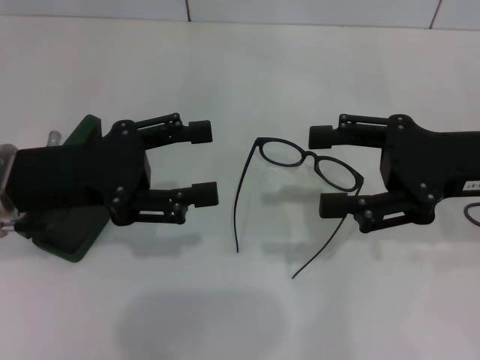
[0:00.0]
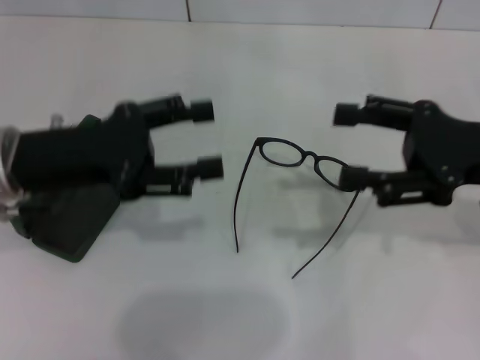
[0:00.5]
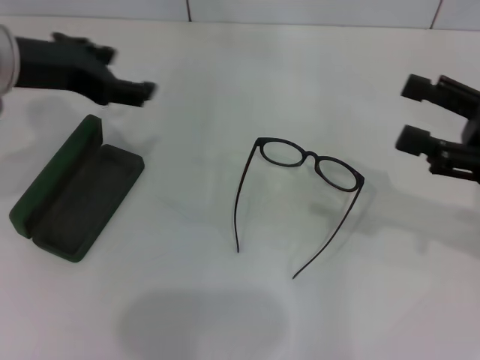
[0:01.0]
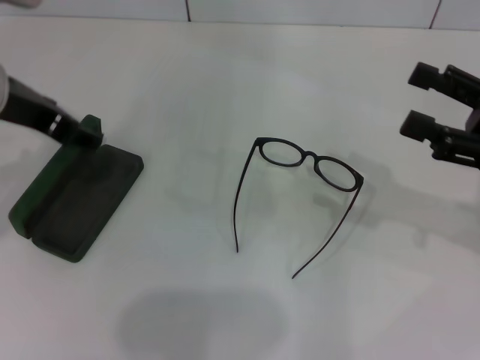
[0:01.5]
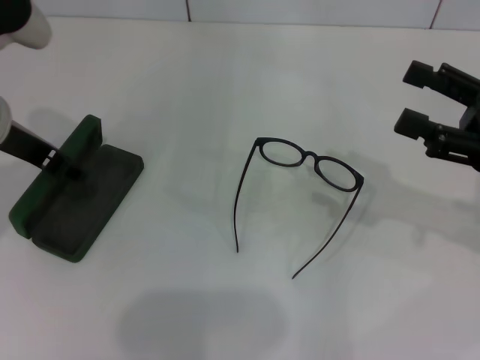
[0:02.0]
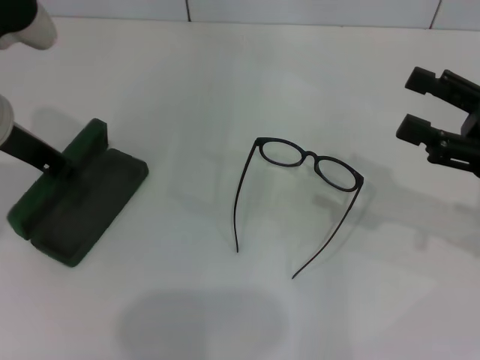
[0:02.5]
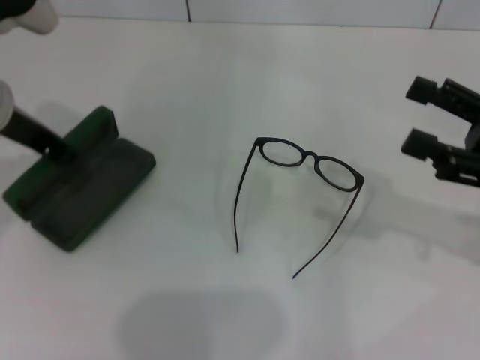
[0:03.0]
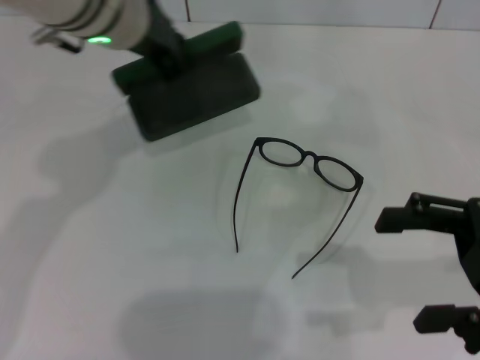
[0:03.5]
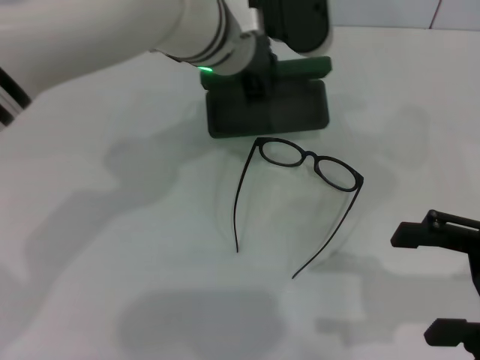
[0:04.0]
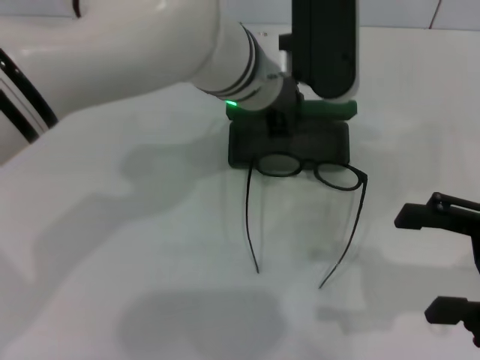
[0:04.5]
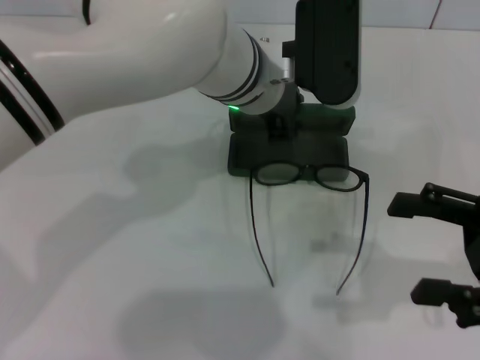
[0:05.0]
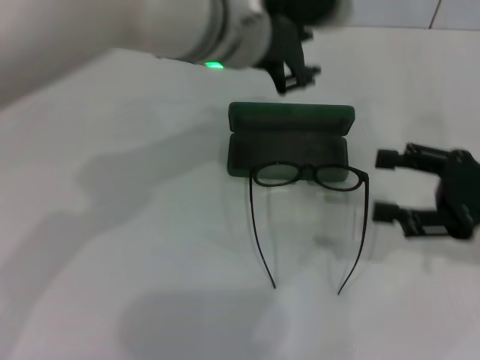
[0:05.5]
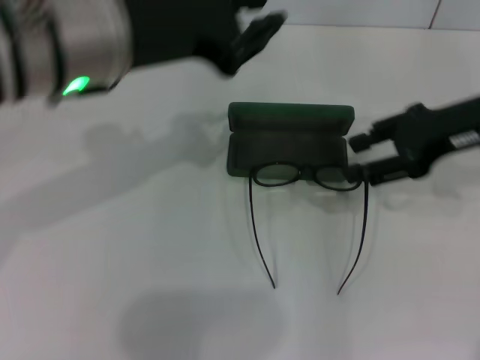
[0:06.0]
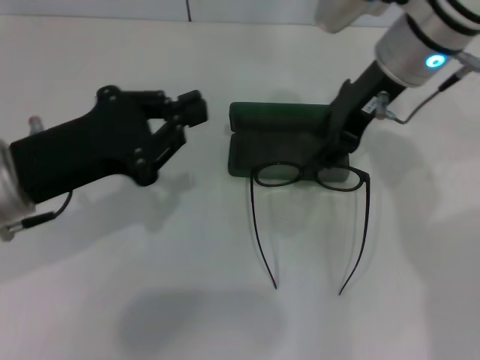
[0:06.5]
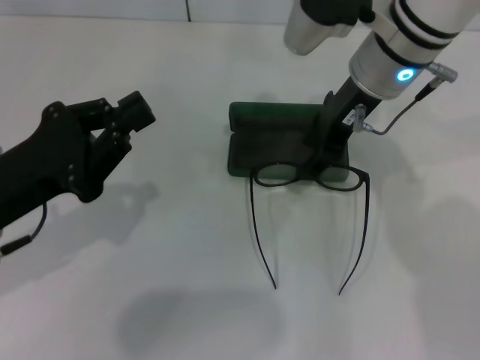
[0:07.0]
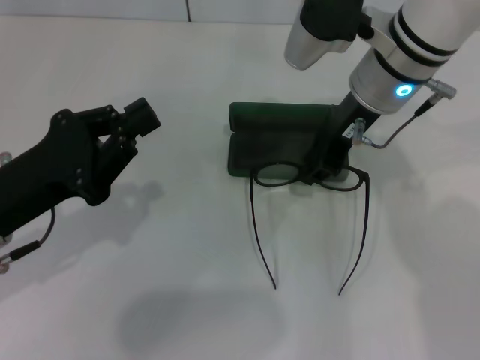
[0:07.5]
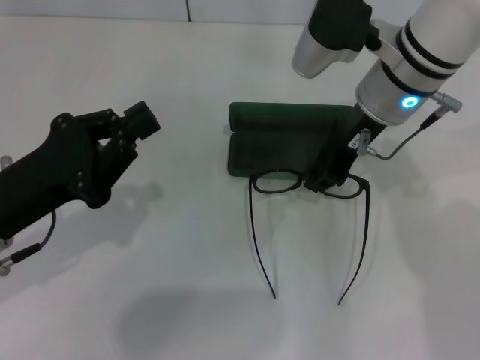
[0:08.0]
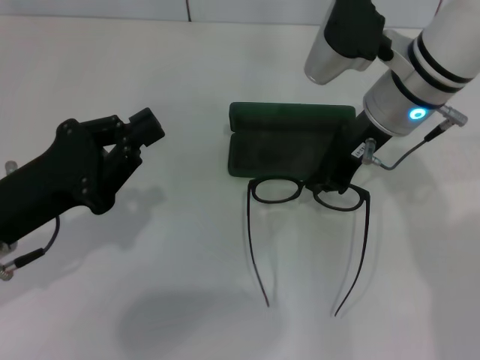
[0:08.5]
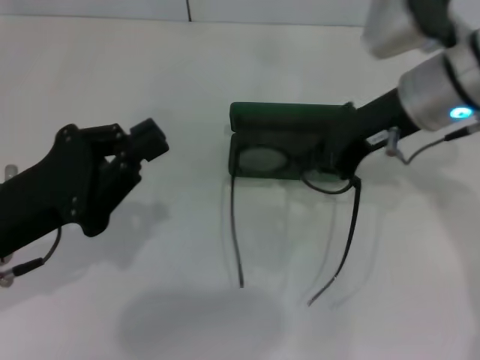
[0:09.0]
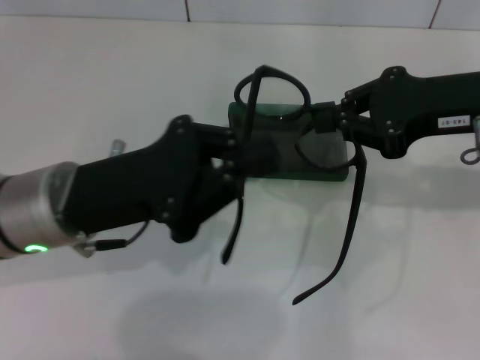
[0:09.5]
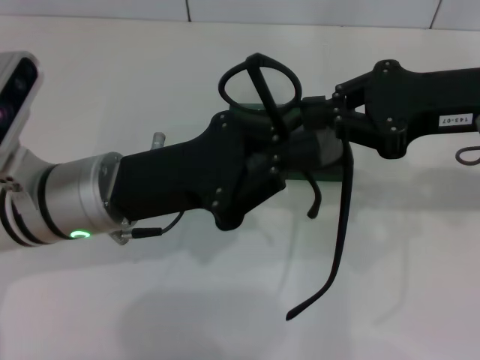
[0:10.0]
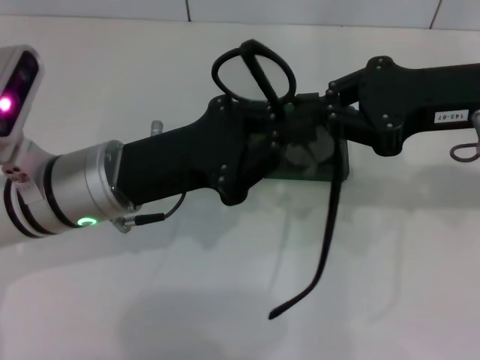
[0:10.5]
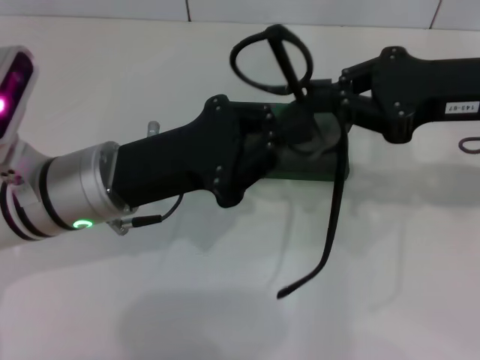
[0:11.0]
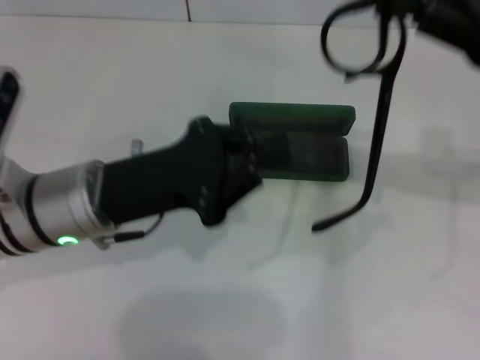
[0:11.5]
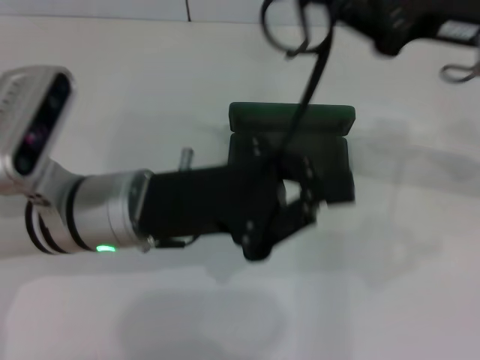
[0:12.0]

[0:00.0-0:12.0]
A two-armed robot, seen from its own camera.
Step, 0:00.0 to 0:02.0: Grab the glasses case with your left hand.
Step, 0:02.5 to 0:04.5: Place the glasses case in the center of the table with your left hand.
Step, 0:05.5 to 0:07.5: Grab the eyeglass frame with your right hand.
0:00.0 to 0:02.0: The right gripper goes some 5 cm to the right. Meanwhile the left gripper goes roughly 5 cm forward and upward.
0:02.0 to 0:04.0: The right gripper travels backward by about 5 cm, while the left gripper heads to the right, covering approximately 20 cm, and closes up.
0:04.0 to 0:06.0: The left gripper goes roughly 15 cm to the left and backward, while the right gripper moves forward, upward and to the left, roughly 15 cm.
0:06.0 to 0:08.0: The right gripper travels to the left by some 15 cm, and closes; the left gripper moves downward, to the left and backward, roughly 20 cm.
0:08.0 to 0:10.0: The left gripper goes some 10 cm to the right. The right gripper travels to the right and backward by about 15 cm.

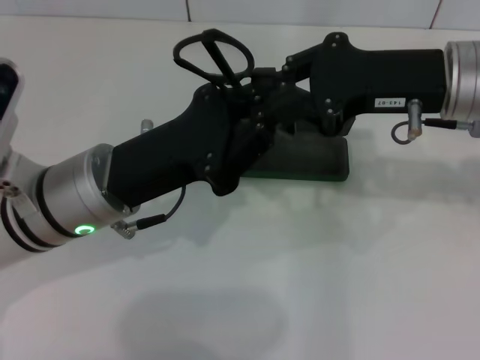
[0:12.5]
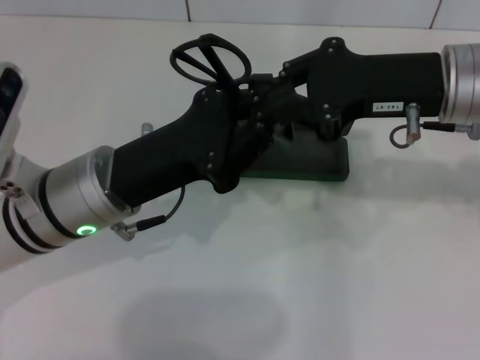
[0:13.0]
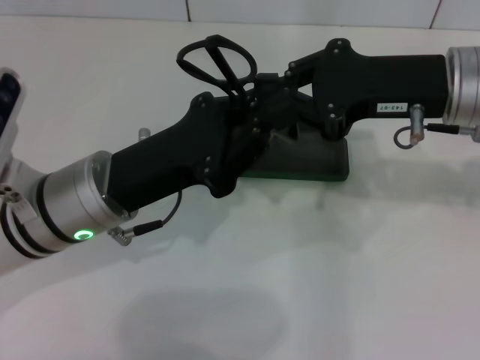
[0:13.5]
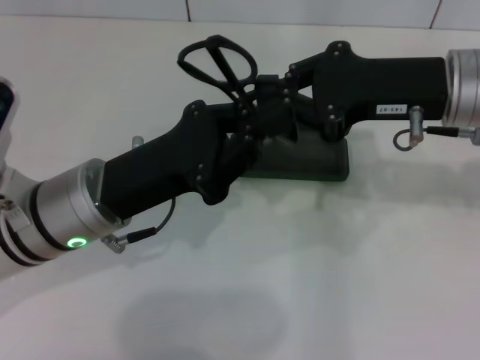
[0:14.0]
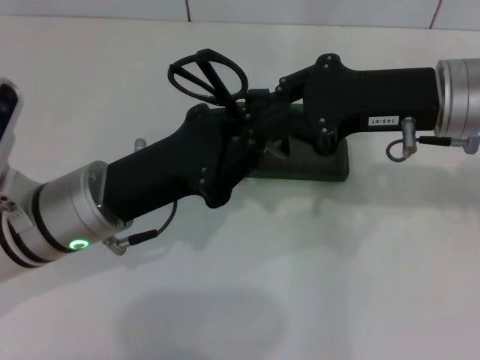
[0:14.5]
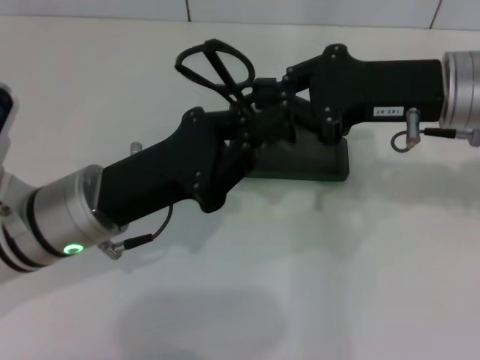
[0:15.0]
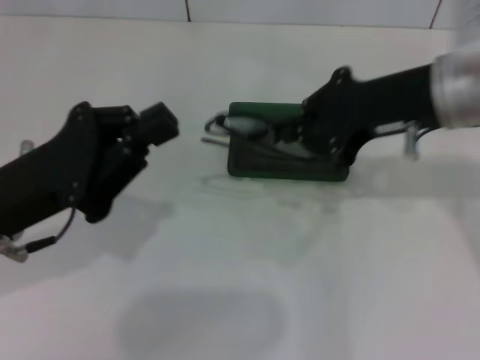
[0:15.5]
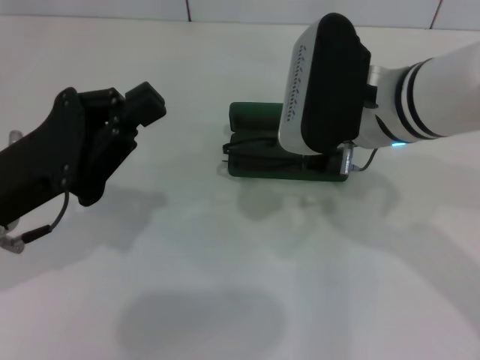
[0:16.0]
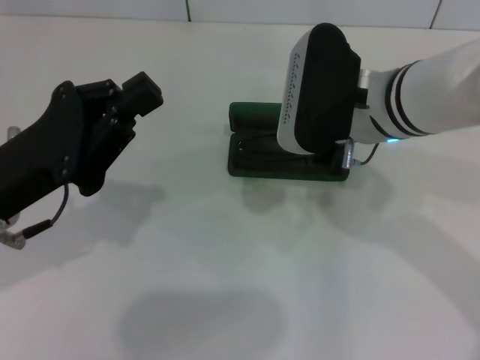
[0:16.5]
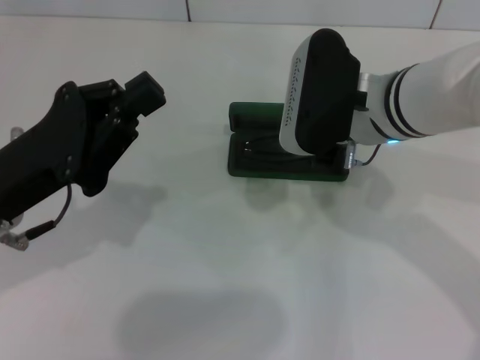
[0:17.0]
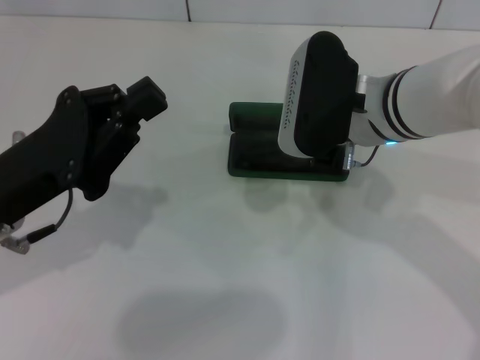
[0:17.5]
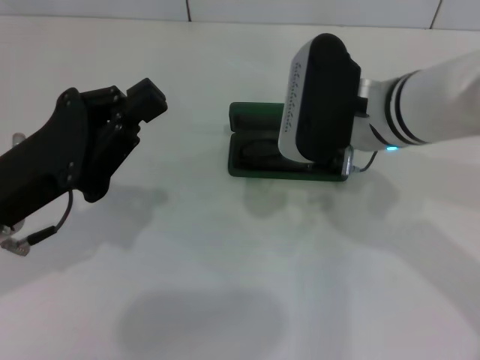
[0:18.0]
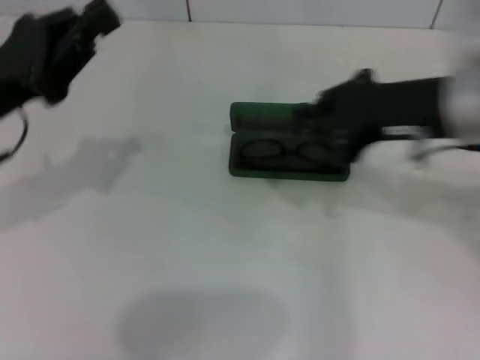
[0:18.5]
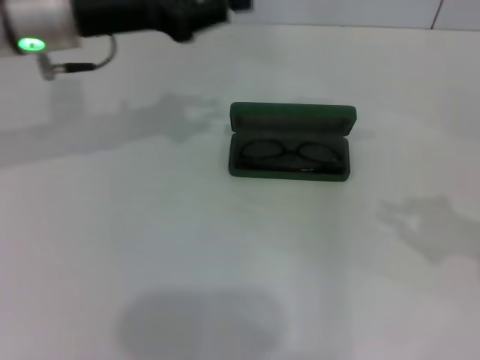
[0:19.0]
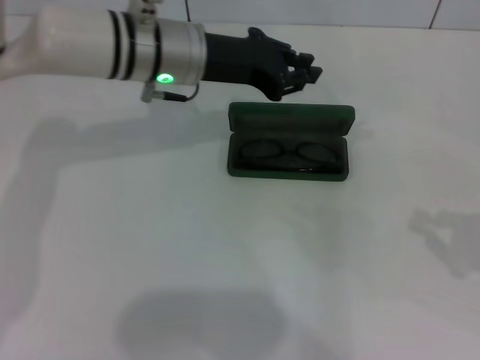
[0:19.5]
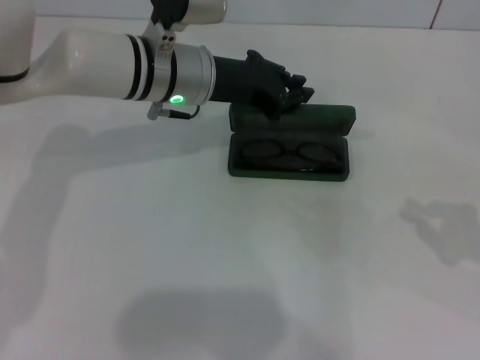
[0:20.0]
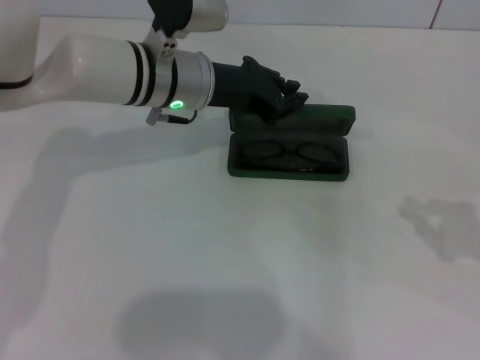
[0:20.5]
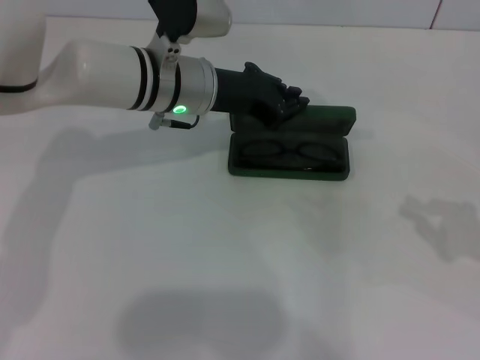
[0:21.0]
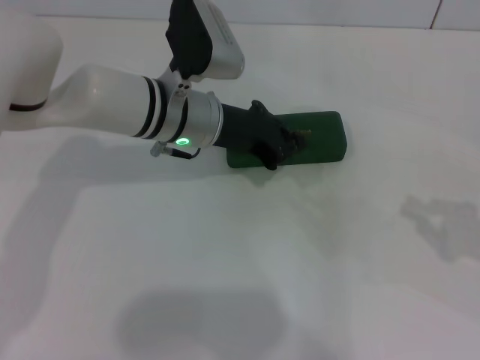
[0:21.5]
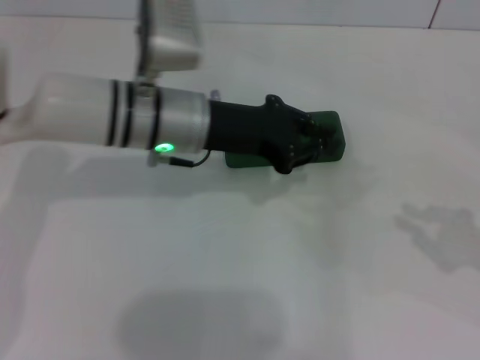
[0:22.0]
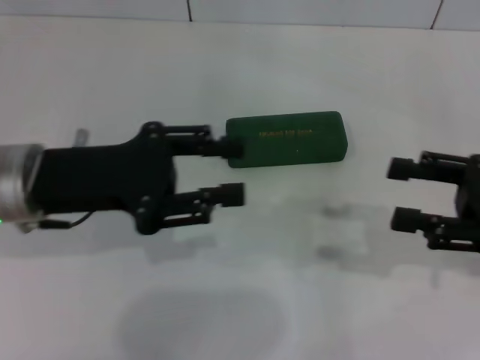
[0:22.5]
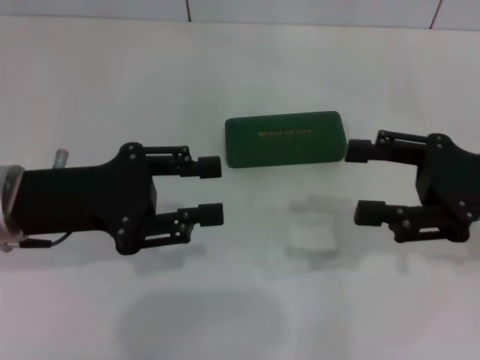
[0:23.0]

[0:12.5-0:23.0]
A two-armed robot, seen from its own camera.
Step, 0:14.0 to 0:18.0: Put the glasses into the case with your right hand.
Step, 0:18.5 to 0:21.5: Close the glasses case with your left hand.
0:12.5 to 0:14.5: The grippers move only a little.
0:14.5 to 0:16.5: Both grippers move to the left, about 10 cm.
0:16.5 to 0:19.0: The left gripper is displaced forward and upward by some 15 cm, while the right gripper travels to the right and backward by about 30 cm.
0:19.0 to 0:21.0: The right gripper travels downward by some 5 cm. Meanwhile the left gripper moves to the right and downward, approximately 15 cm.
0:21.0 to 0:23.0: The left gripper travels backward and to the left by roughly 20 cm, and opens up; the right gripper shifts some 10 cm to the left and forward, and opens up.

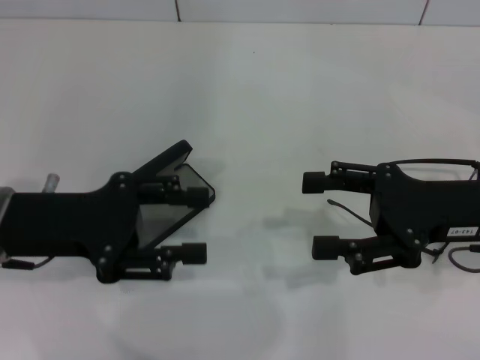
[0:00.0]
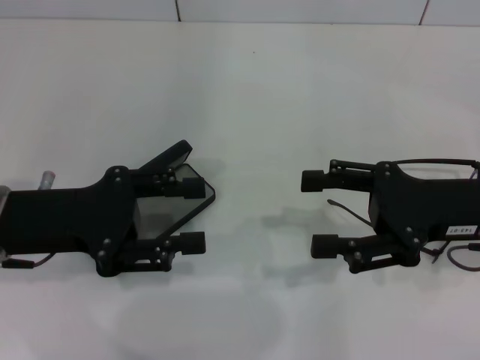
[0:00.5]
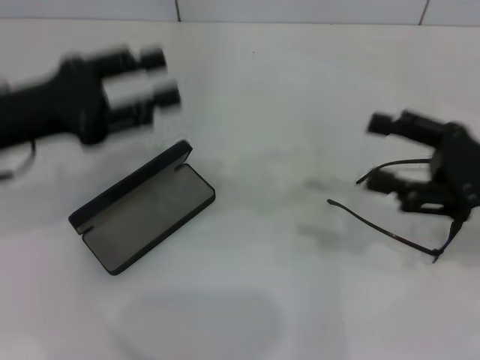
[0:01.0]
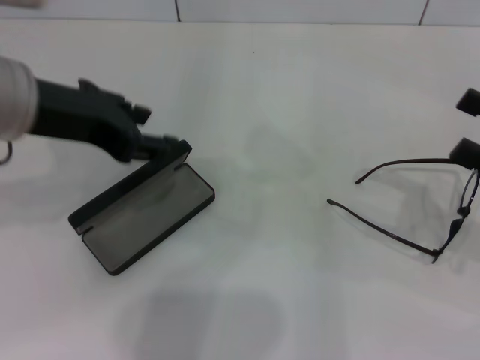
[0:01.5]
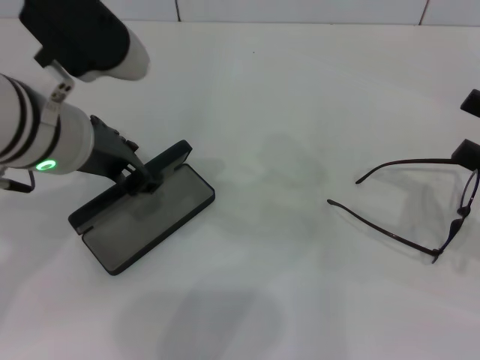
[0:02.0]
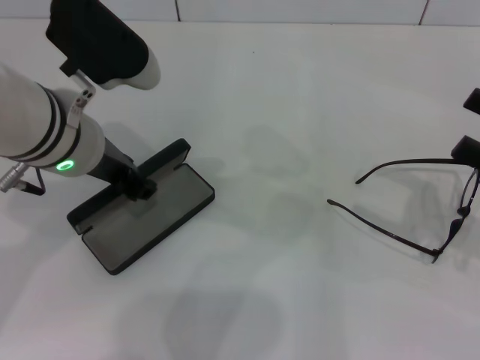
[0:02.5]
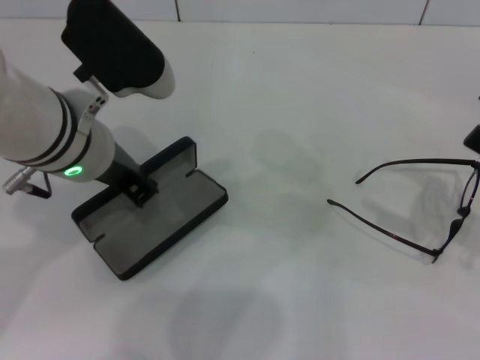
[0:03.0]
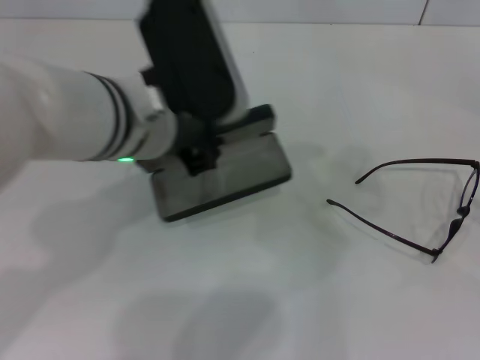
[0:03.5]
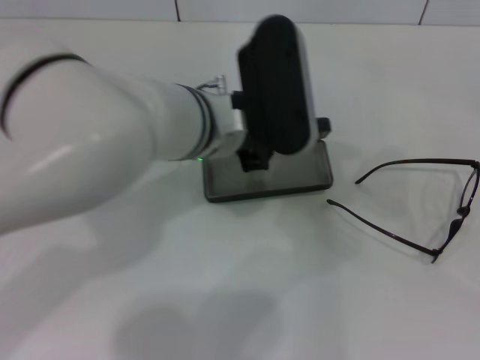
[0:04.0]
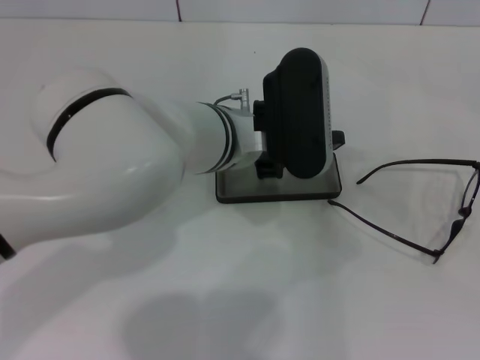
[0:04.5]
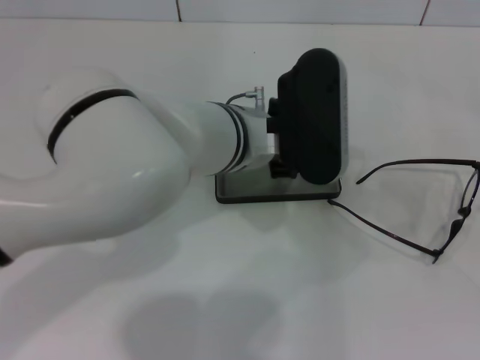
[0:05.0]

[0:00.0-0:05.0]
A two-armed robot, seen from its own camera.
Step, 0:00.0 to 0:02.5: Grab the glasses case with your left hand.
0:00.0 to 0:02.5: The right gripper is displaced to the right by approximately 10 cm; the left gripper moves to the right and forward, approximately 10 cm.
0:02.5 to 0:05.0: The right gripper shifts approximately 10 cm backward and to the right; the left gripper goes roughly 15 cm to the right.
